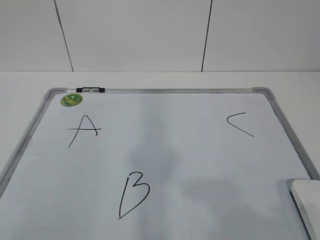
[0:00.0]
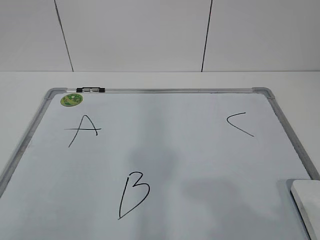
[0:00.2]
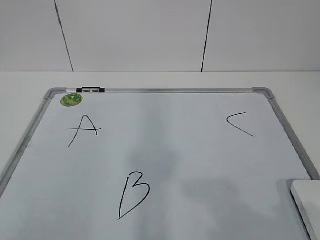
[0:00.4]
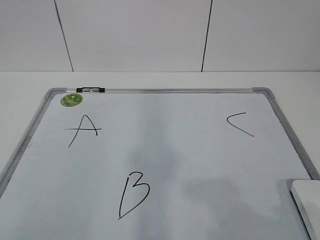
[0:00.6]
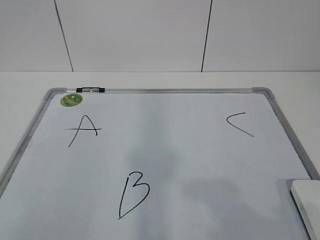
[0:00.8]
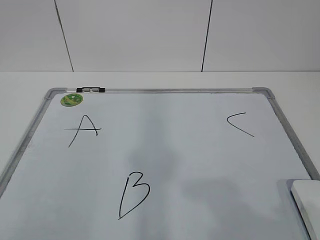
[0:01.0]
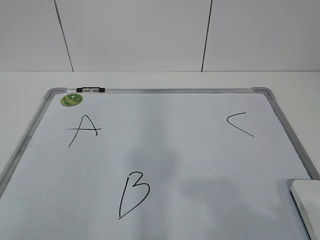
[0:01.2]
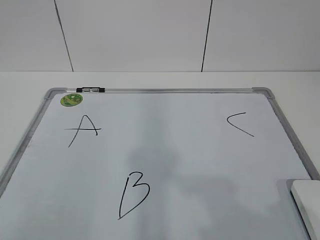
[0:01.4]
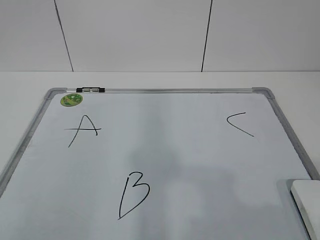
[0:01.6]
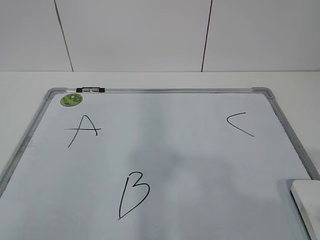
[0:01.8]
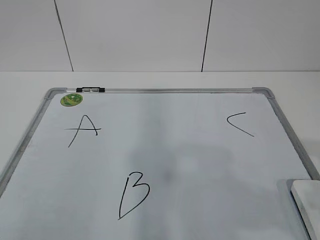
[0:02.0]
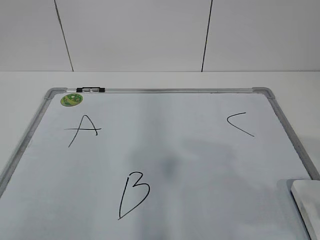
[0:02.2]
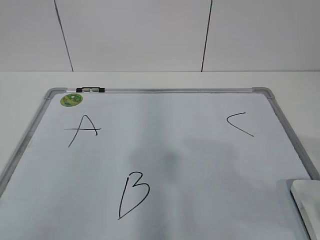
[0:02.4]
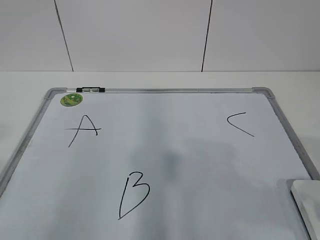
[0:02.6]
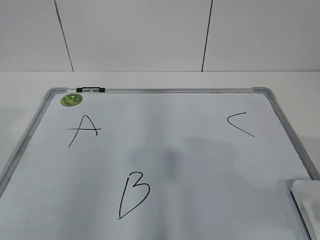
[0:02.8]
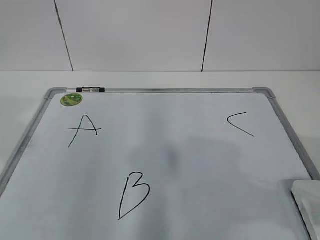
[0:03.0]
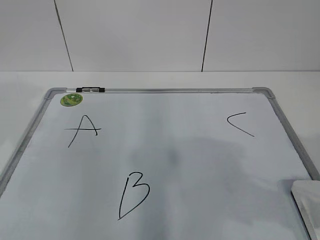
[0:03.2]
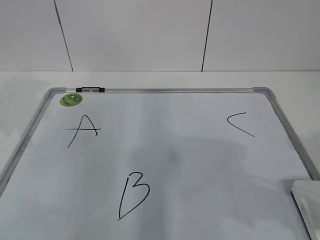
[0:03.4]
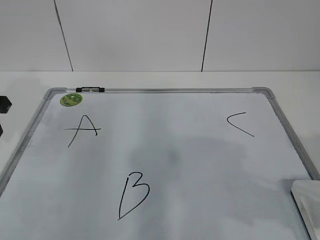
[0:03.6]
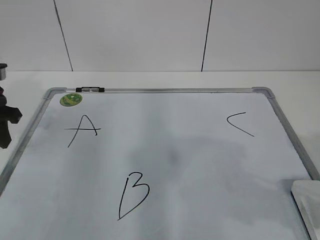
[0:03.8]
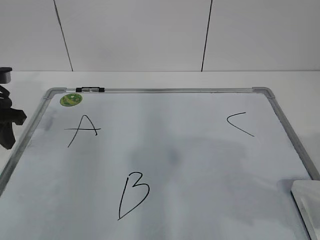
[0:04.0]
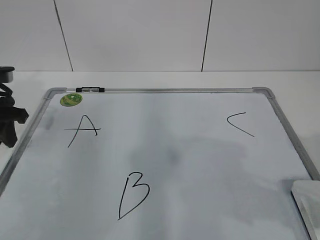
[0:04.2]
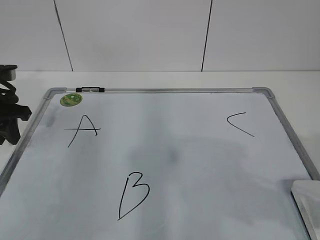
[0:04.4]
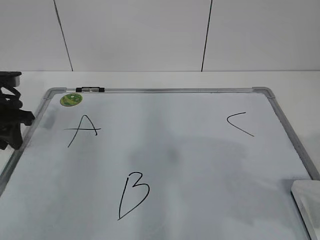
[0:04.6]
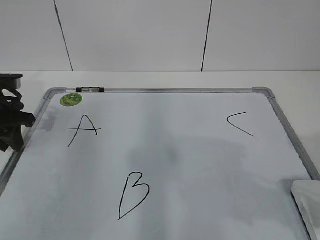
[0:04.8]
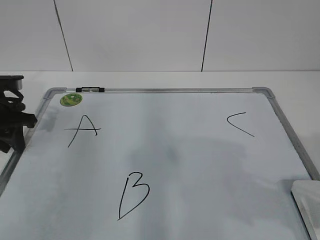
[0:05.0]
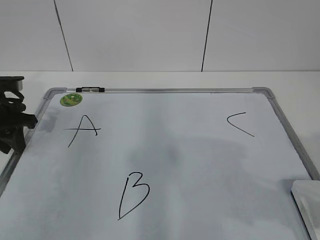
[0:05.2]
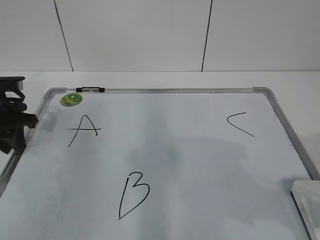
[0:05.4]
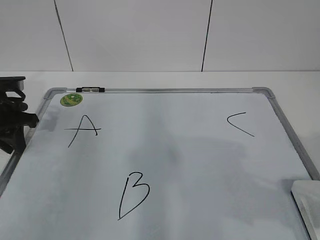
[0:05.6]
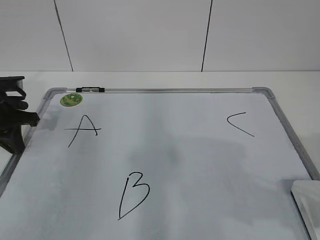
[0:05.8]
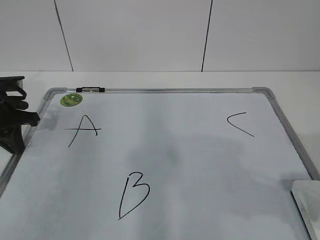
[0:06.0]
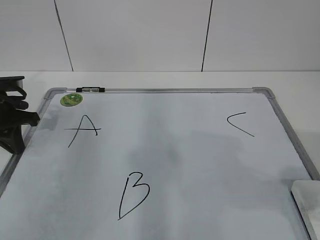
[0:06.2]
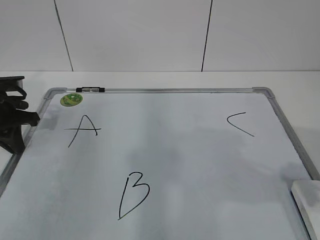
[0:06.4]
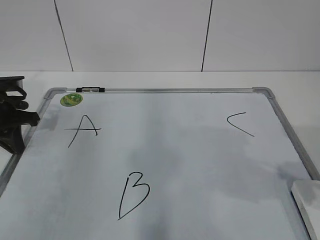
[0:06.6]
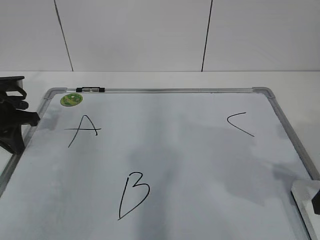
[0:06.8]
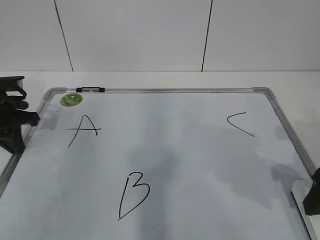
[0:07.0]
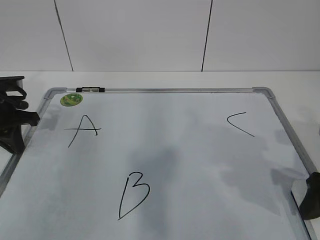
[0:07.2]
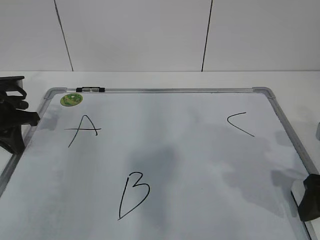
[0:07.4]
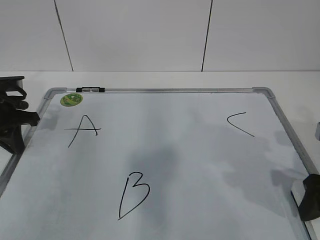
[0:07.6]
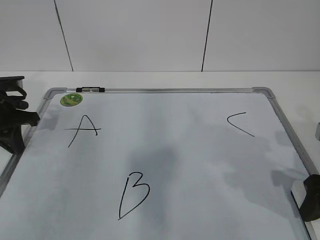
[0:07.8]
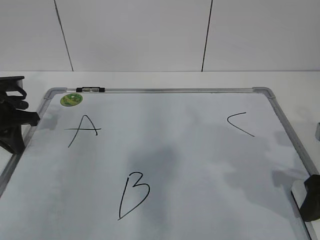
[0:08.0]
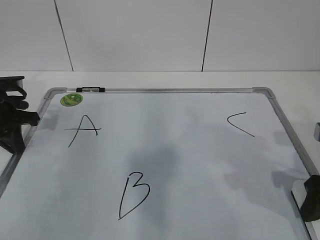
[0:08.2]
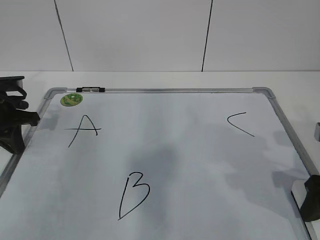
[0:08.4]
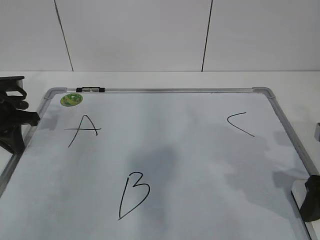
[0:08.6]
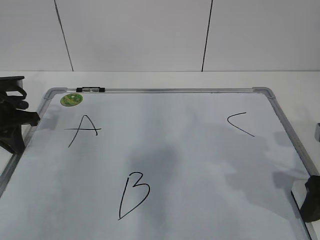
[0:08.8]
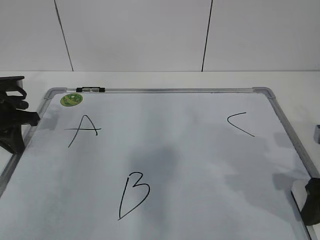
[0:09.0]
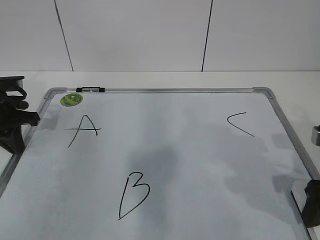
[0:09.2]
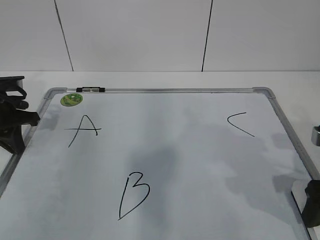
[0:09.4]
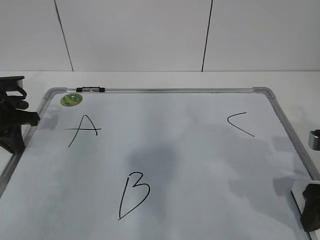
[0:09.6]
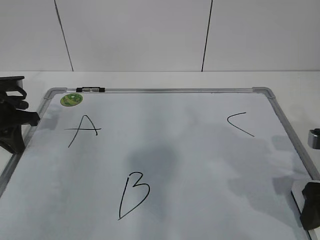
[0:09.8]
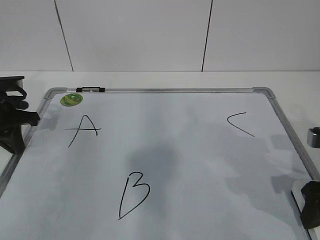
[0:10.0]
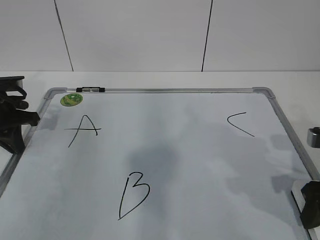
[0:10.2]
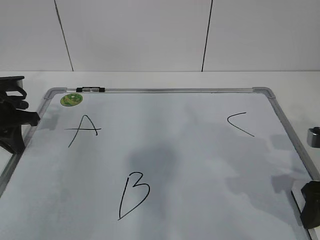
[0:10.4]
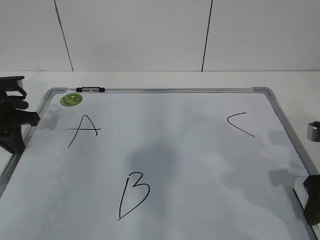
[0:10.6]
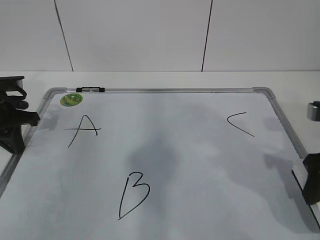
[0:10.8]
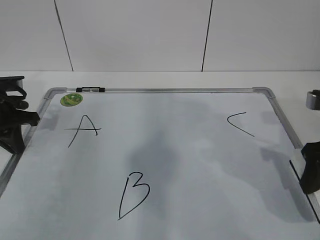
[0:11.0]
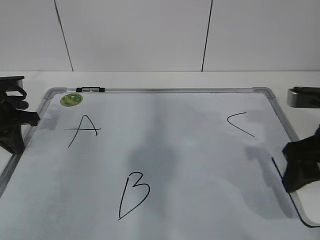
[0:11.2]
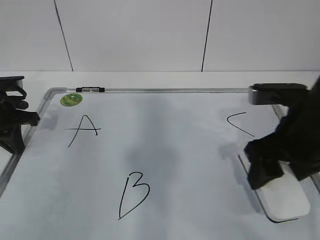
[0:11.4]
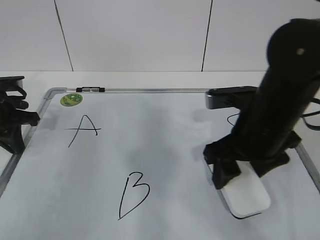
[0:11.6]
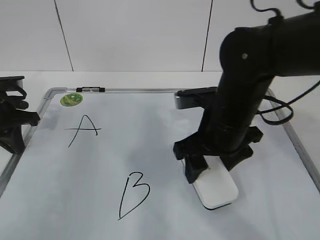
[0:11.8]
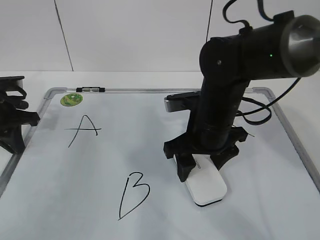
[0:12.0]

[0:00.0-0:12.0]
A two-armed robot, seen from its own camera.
Task of the whole recording: pick up the eraser on the blackboard and erase the letter "B".
Step, 0:00.0 to 0:04.8: Hold the drawing board steady with your left hand.
0:01.6 to 0:03.0: The right gripper travels forward by approximately 10 cm.
0:03.0 to 0:04.4: The left gripper moves forward and downward, about 20 cm.
0:04.4 to 0:06.0: The left gripper closes.
0:06.0 to 0:07.6: The right gripper travels forward and downward by roughly 10 cm, and opens up.
0:07.6 to 0:09.0: Neither gripper changes place.
0:10.4 to 0:12.0: The right gripper shifts approximately 20 cm to the left and forward.

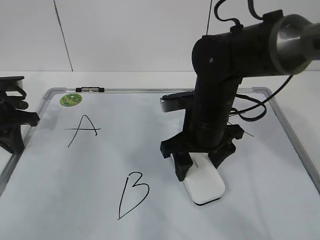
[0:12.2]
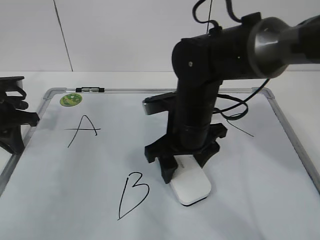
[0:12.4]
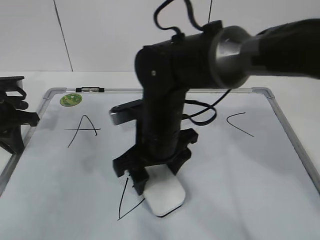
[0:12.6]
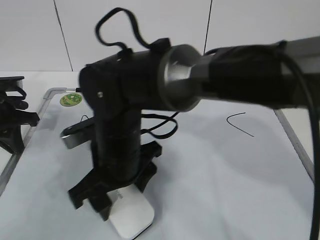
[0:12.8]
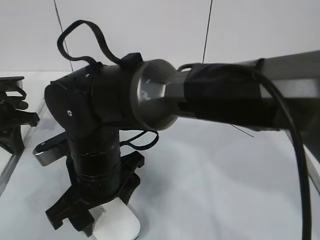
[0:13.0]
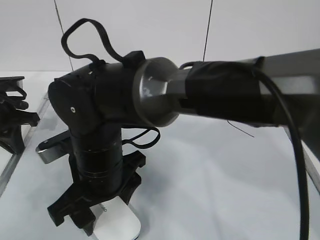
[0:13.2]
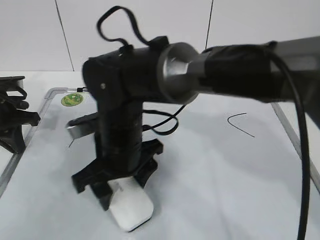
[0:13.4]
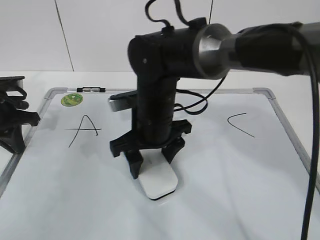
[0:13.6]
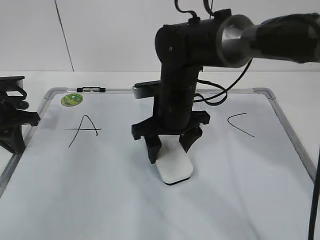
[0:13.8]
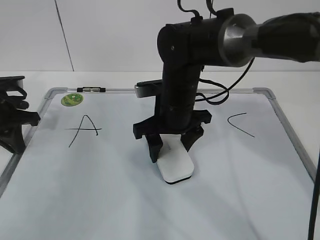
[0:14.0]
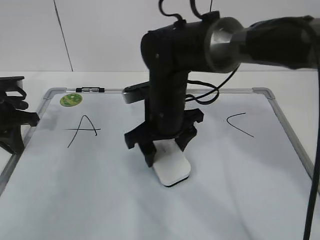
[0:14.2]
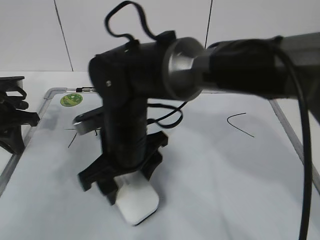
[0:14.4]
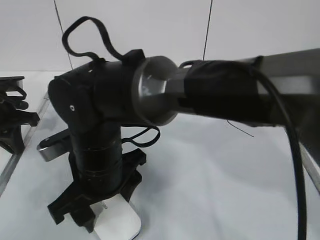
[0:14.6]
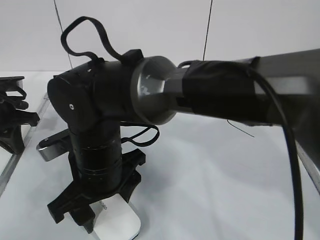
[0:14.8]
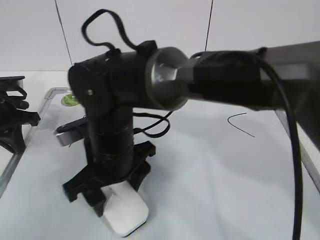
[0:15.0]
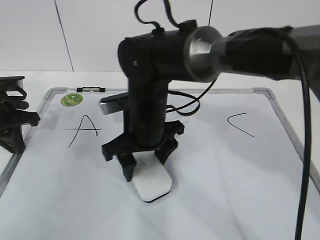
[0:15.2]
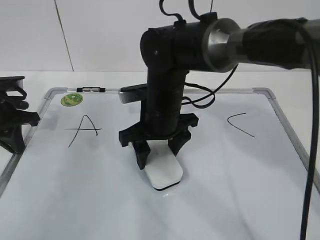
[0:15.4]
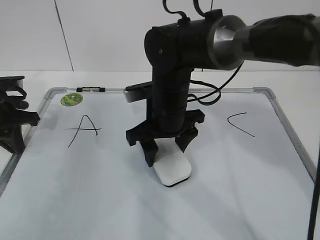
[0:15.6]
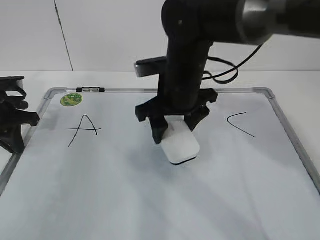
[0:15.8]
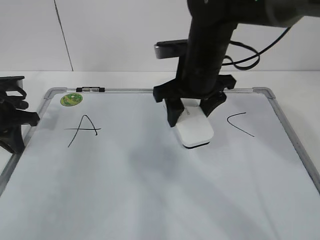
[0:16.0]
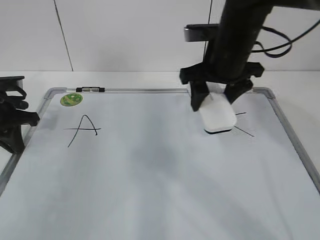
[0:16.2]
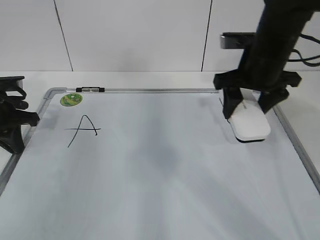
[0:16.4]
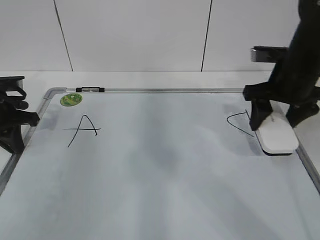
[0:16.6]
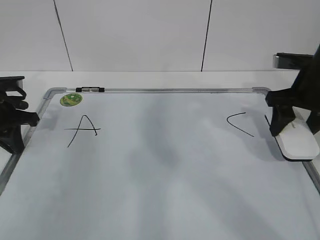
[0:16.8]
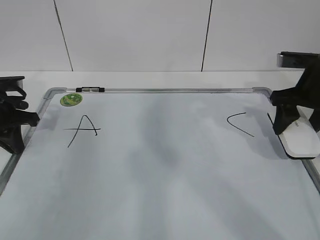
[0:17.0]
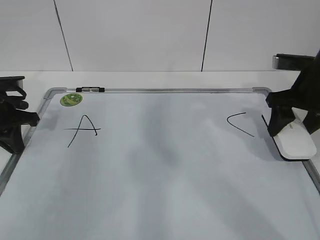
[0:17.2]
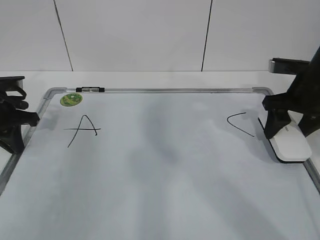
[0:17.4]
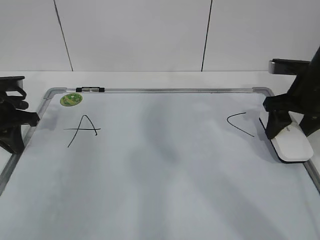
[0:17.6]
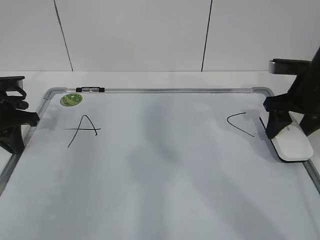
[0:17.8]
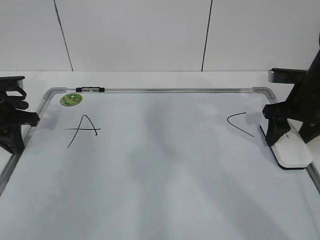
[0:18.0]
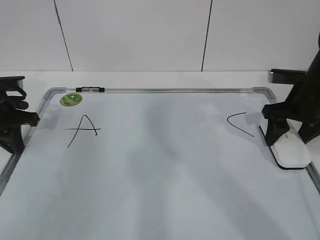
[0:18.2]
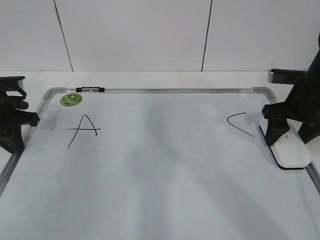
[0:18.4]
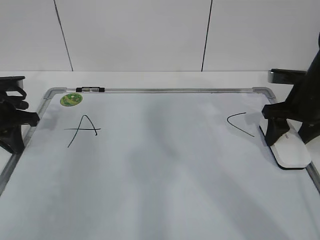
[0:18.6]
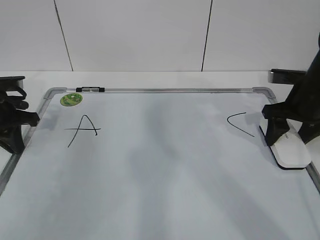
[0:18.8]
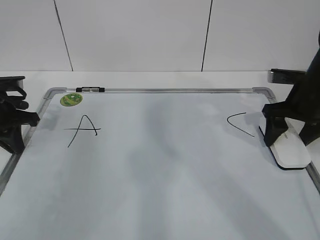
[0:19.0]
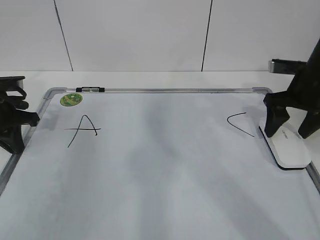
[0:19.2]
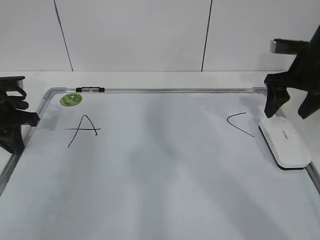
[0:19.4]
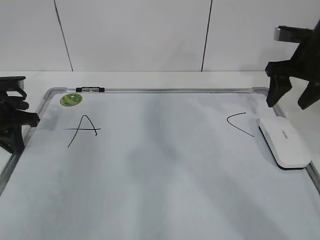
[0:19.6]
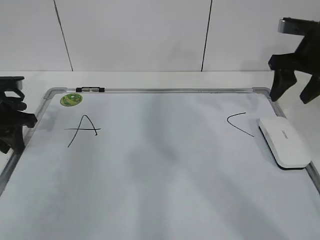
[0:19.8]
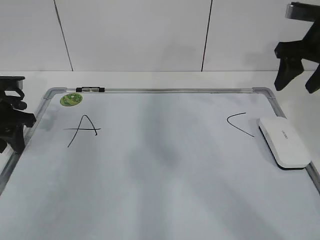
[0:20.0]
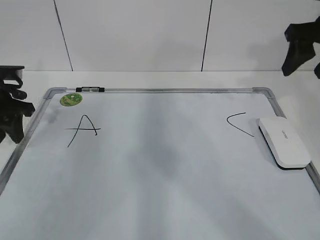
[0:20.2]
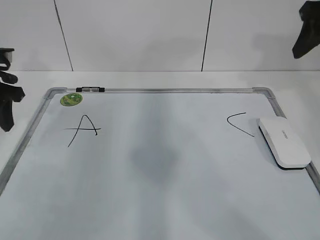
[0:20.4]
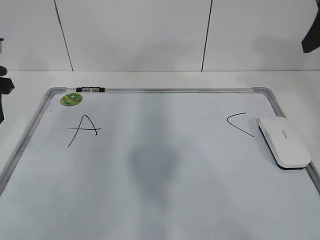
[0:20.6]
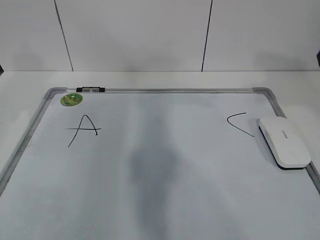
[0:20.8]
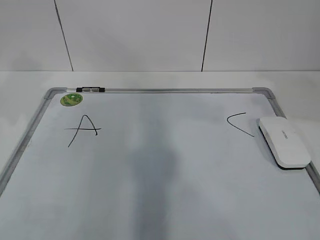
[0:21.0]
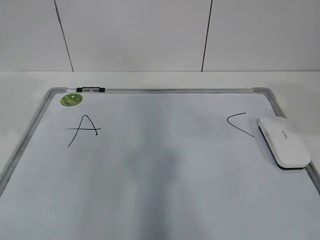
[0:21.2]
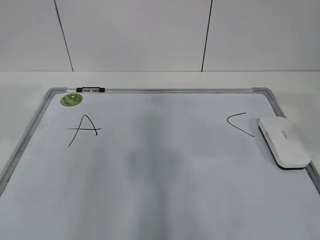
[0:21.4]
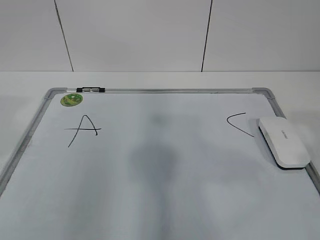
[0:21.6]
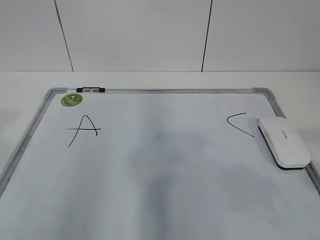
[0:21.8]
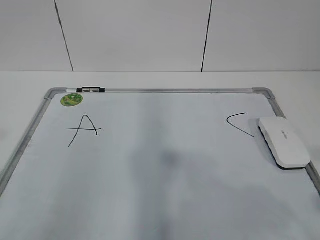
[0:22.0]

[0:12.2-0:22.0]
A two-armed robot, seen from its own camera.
Task of the whole recording: pick up the eraser on the blackboard and erase the letter "B".
Step, 0:13.0 to 0:15.0: Put down the eraser with your right hand.
0:12.2 to 0:13.6: The right gripper heads to the left, covering some 10 cm.
0:13.6 to 0:15.0: The right gripper is displaced backward and to the left by roughly 10 cm.
0:15.0 to 0:16.4: The right gripper goes some 25 cm to the right and forward.
0:16.4 to 0:17.8: The right gripper travels to the right by roughly 10 cm.
0:17.8 to 0:19.2: The right gripper opens its fingers.
0:19.2 to 0:20.6: The right gripper travels upward and backward by roughly 20 cm, and closes, while the left gripper travels upward by approximately 10 cm, and opens.
0:20.6 to 0:22.0: Both grippers travel together backward, roughly 30 cm.
